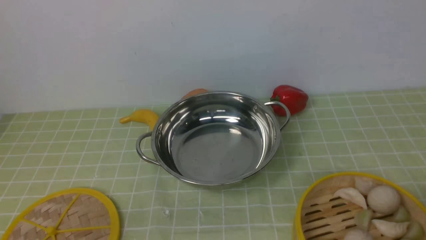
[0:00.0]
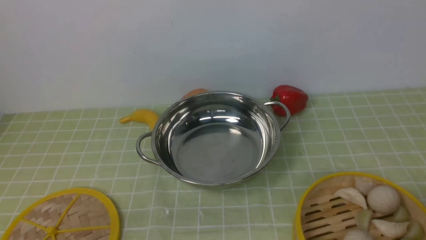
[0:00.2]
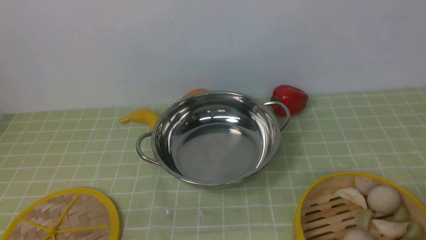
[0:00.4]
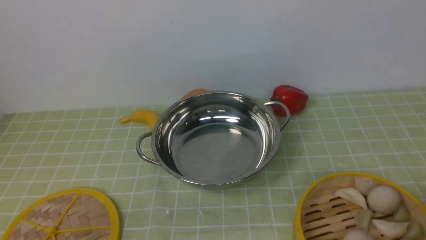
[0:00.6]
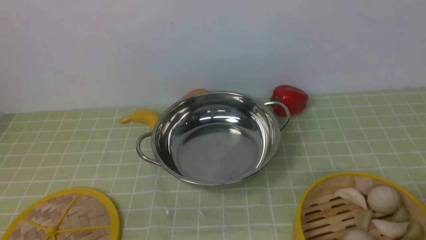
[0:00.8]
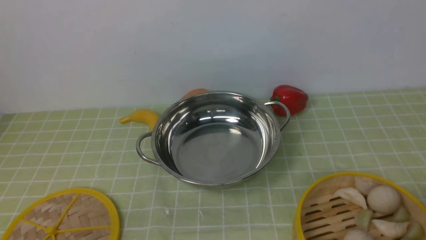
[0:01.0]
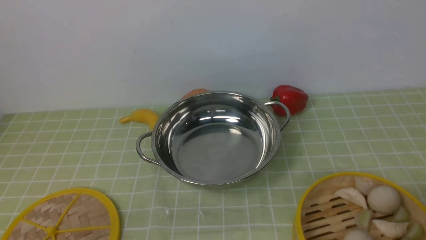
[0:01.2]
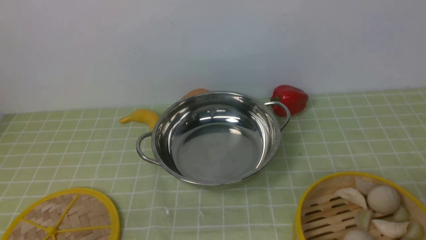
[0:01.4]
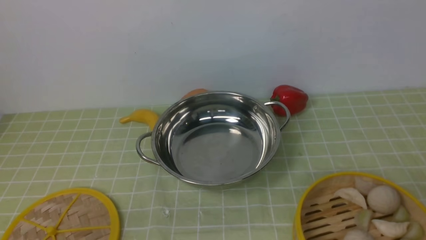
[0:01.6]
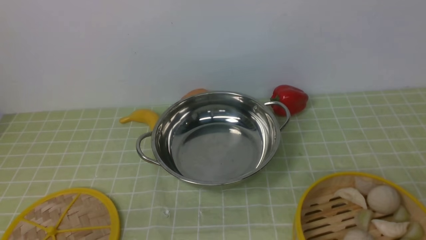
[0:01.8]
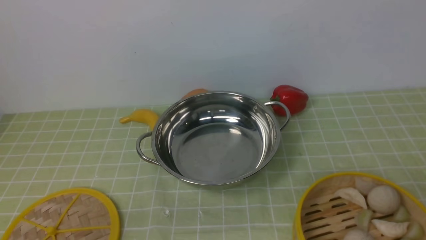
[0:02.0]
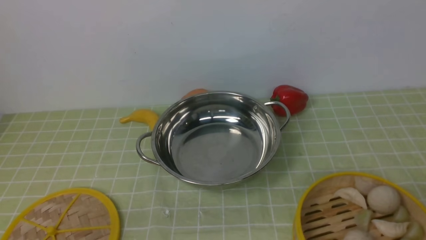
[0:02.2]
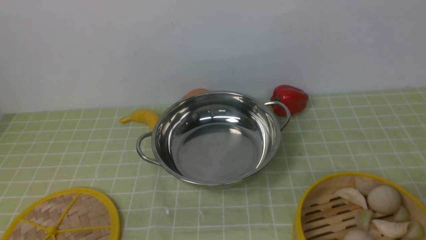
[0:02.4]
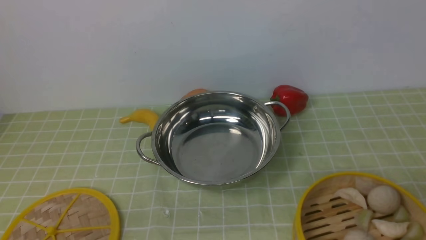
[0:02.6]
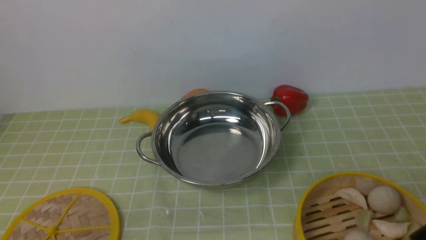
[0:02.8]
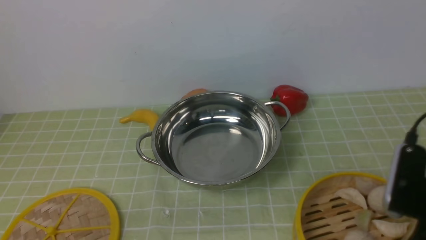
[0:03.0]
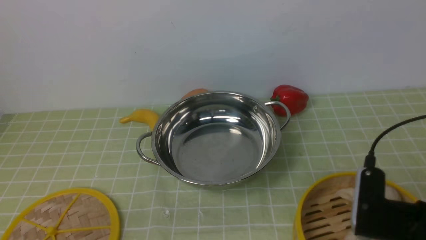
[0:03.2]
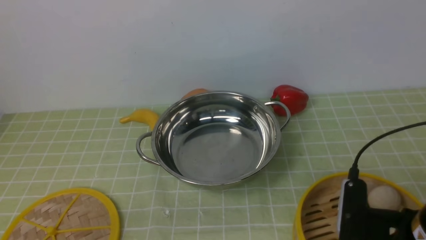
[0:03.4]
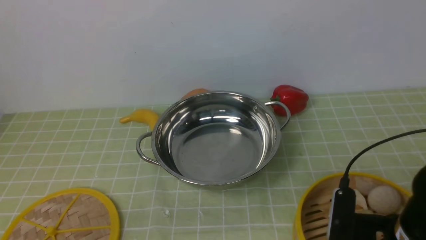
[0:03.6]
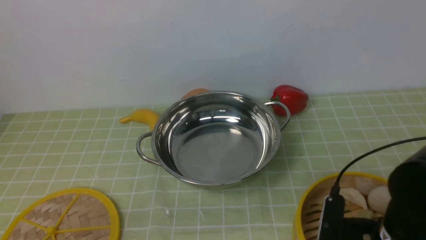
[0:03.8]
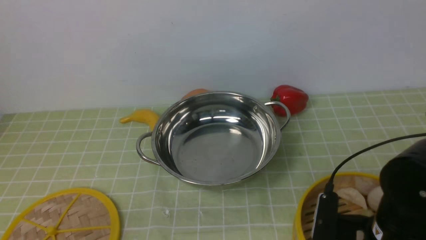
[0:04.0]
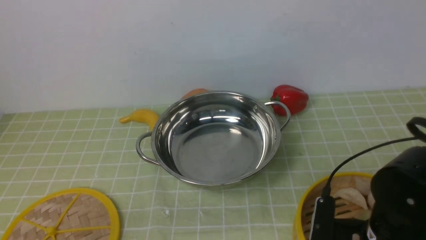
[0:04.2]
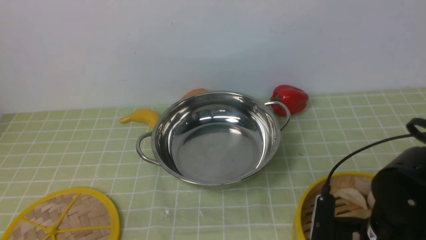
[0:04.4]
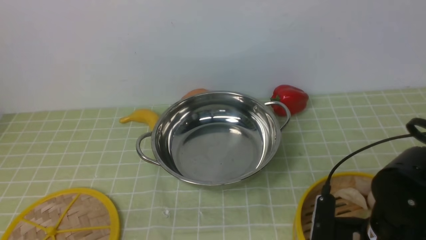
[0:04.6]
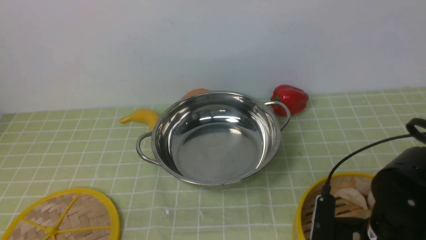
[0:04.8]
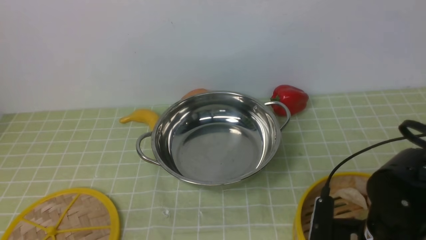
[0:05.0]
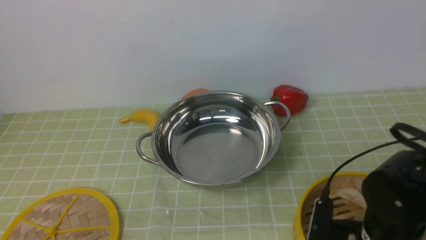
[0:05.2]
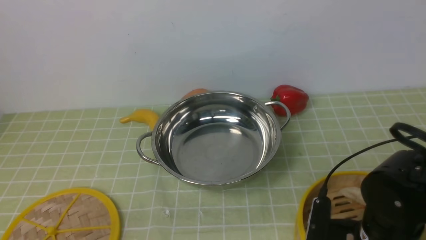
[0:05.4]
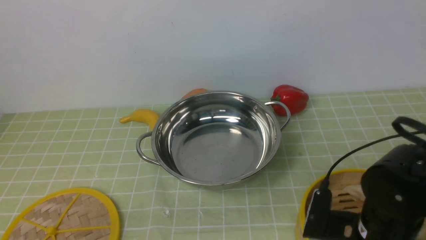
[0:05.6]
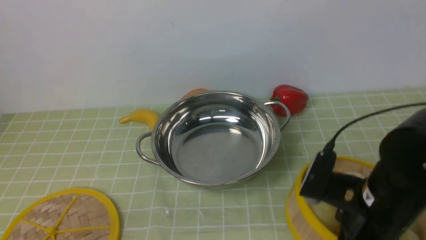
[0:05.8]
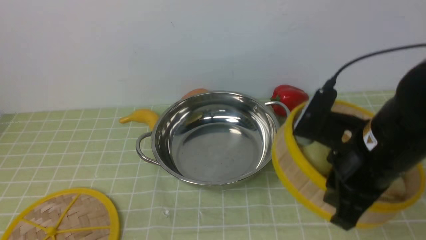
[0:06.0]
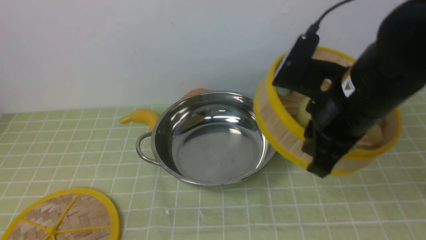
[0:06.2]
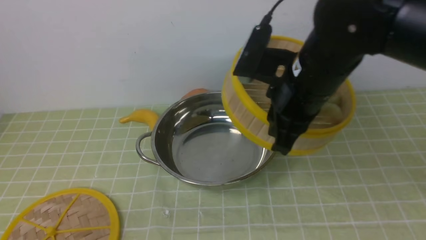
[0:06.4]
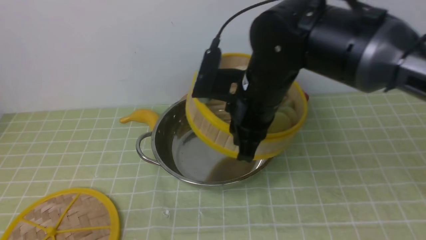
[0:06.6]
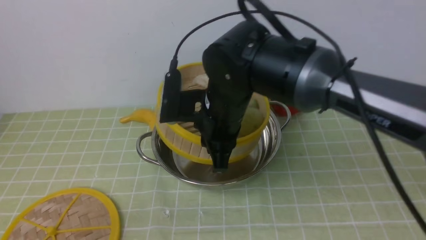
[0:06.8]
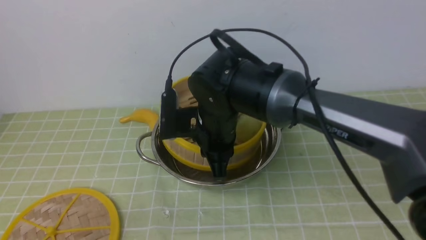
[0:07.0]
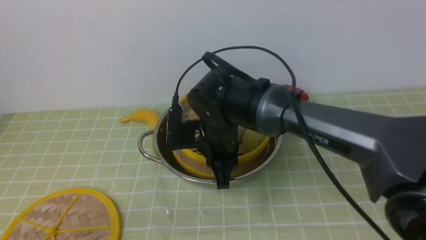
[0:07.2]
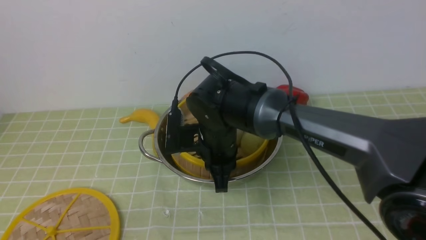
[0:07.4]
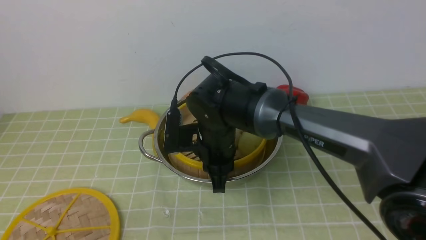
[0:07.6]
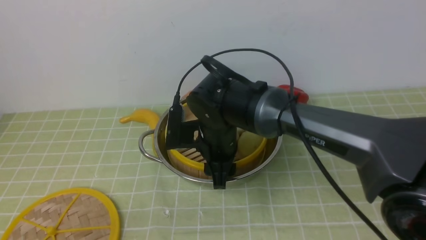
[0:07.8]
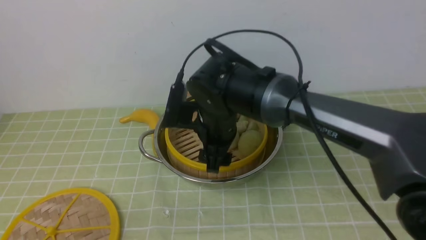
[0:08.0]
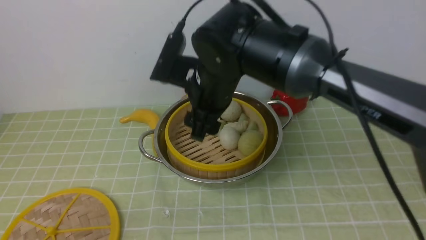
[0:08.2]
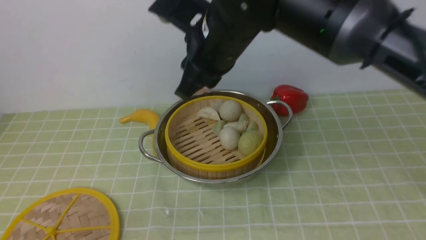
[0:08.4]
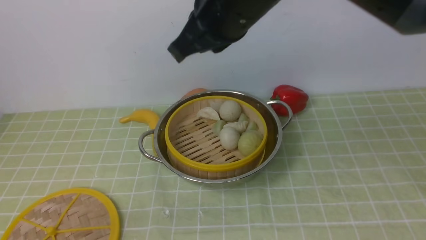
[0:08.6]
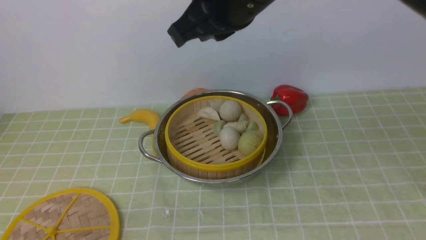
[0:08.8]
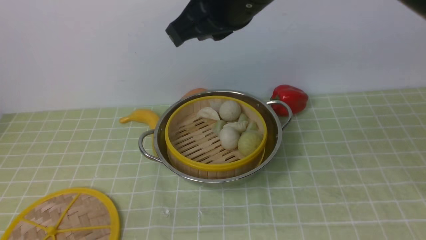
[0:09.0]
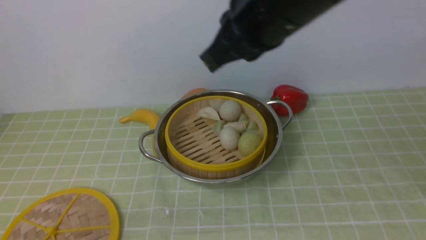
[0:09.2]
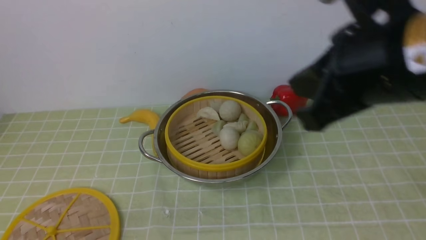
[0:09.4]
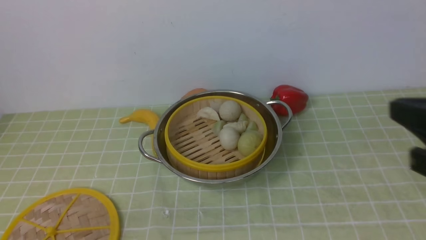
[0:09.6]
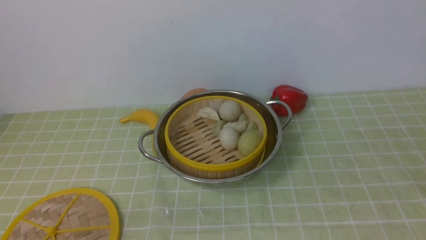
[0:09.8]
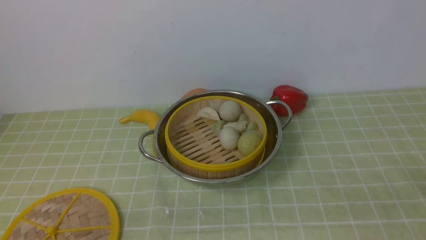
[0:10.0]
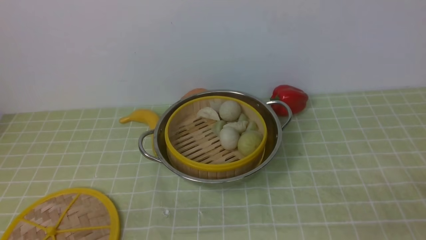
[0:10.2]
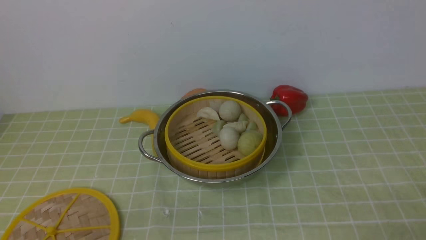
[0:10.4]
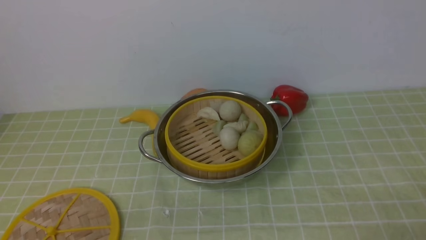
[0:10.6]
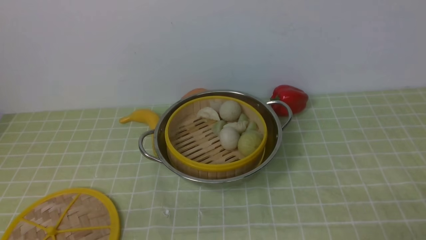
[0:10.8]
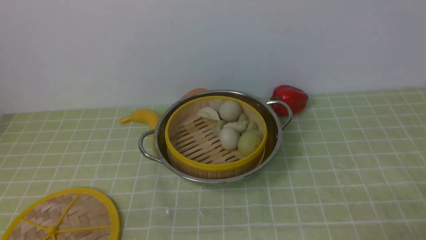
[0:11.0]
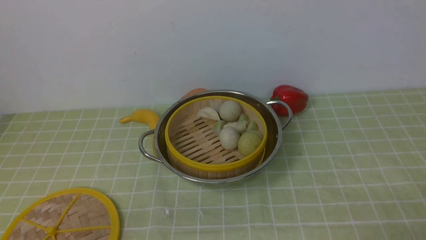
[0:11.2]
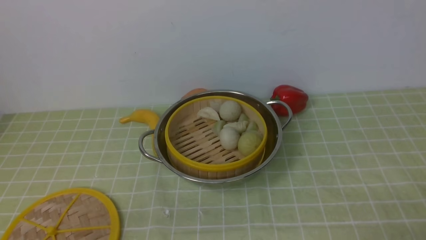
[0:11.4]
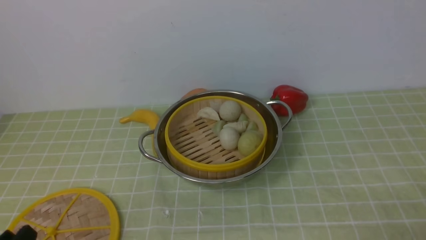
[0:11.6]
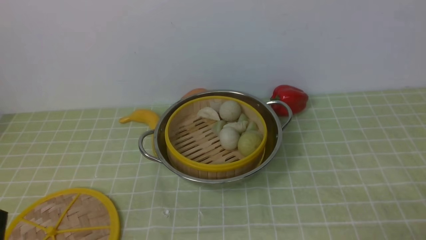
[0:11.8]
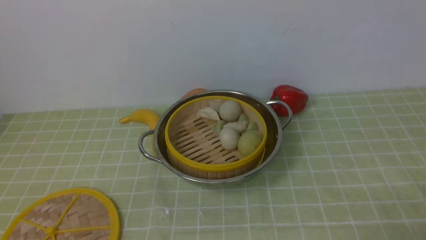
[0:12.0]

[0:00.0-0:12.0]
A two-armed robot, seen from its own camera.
Task of the whole recording: place the steamer in the pot on the green tablecloth, and put the lid on the steamer.
Step, 0:00.0 to 0:06.0: use the right arm to lift the steamer closest to it.
Step, 0:06.4 to 0:08.4: use the right arm to put the steamer into the iron steamer pot in the middle.
0:01.6 to 0:03.0: The right gripper heads forward and to the left, covering approximately 15 cm.
0:03.0 to 0:04.4: The right gripper heads downward and to the left, covering some 10 cm.
0:04.4 to 0:06.0: The right gripper travels upward by some 10 cm, and closes.
0:06.0 to 0:07.6: The right gripper goes some 25 cm to the left, forward and downward.
0:07.6 to 0:09.0: The right gripper goes roughly 25 cm upward, and closes.
0:09.0 to 0:10.4: The right gripper heads to the right, downward and backward, covering roughly 40 cm.

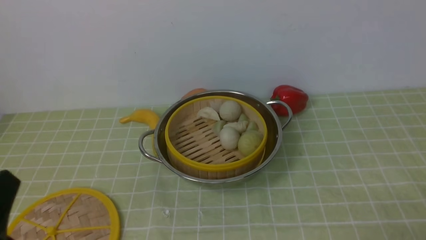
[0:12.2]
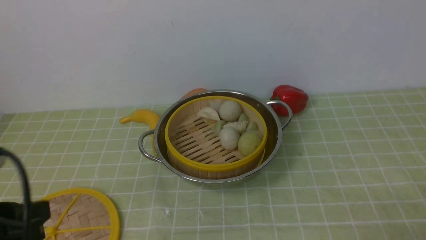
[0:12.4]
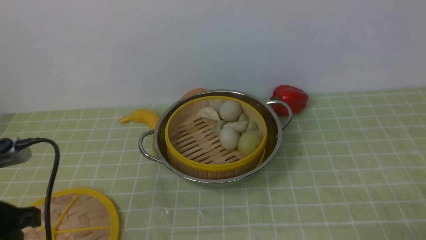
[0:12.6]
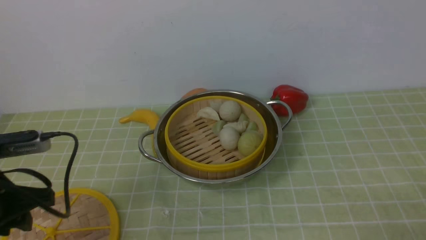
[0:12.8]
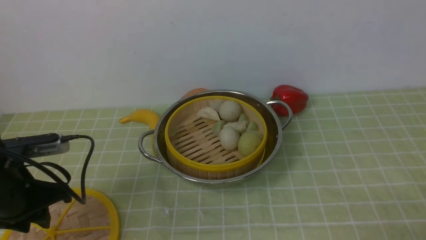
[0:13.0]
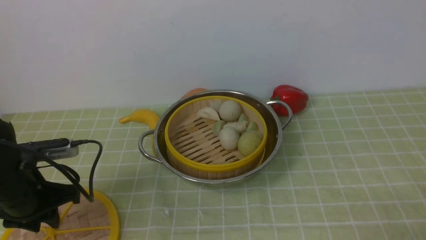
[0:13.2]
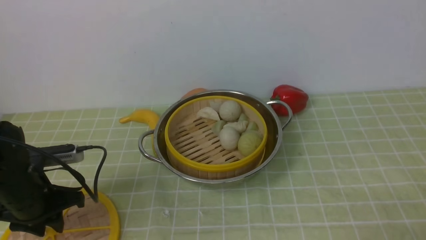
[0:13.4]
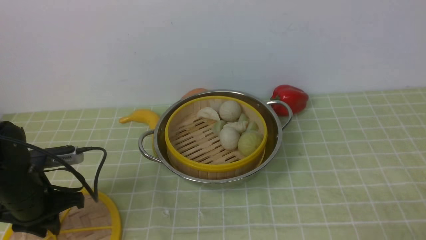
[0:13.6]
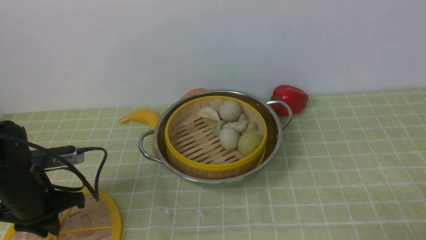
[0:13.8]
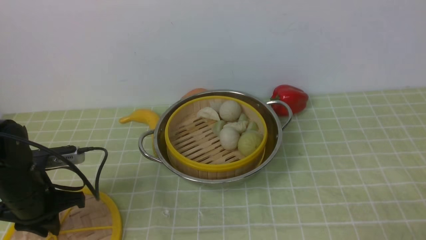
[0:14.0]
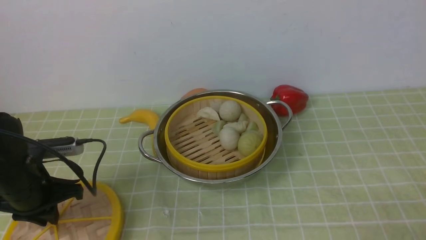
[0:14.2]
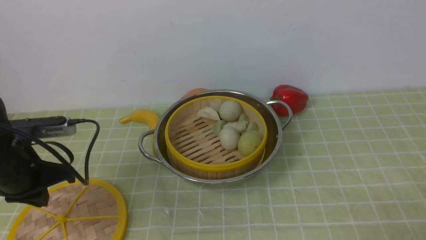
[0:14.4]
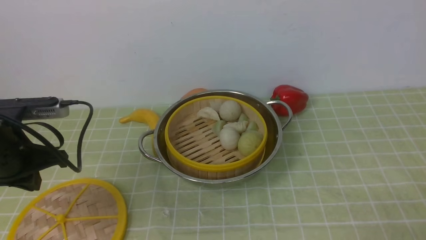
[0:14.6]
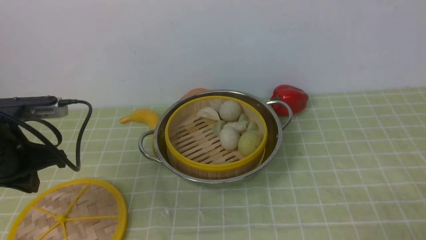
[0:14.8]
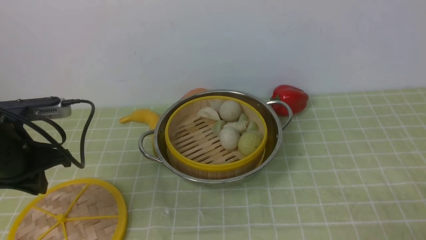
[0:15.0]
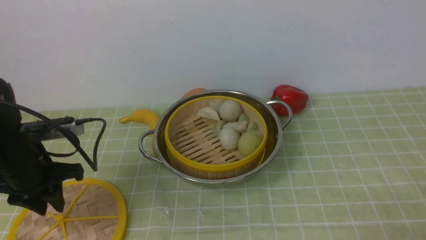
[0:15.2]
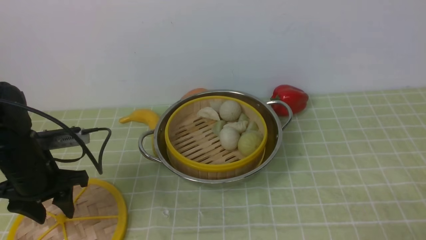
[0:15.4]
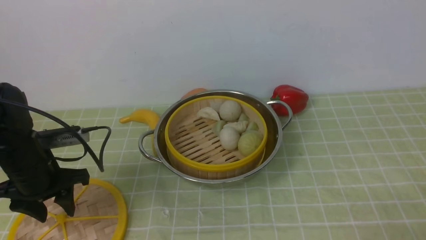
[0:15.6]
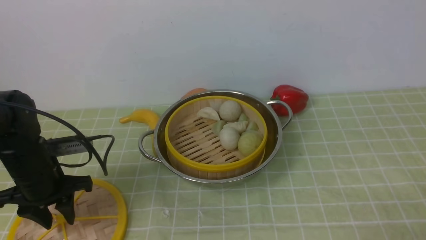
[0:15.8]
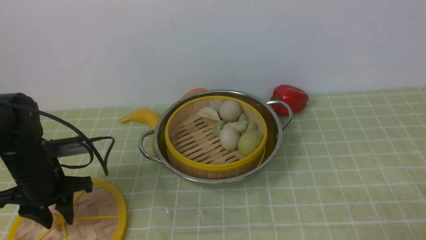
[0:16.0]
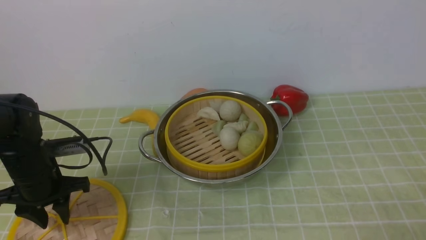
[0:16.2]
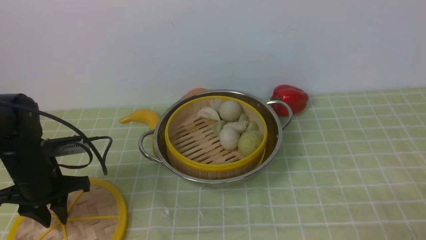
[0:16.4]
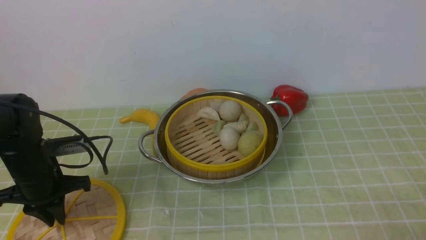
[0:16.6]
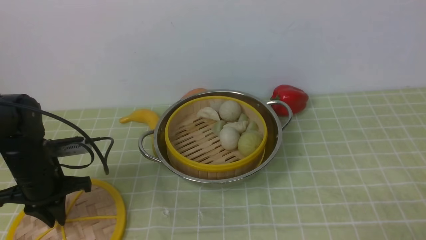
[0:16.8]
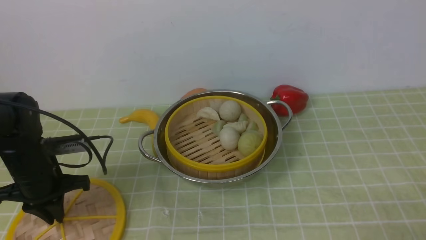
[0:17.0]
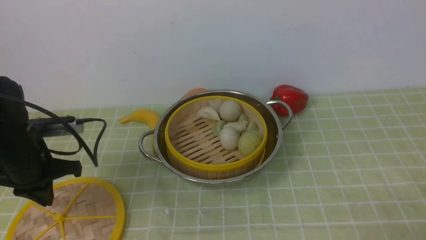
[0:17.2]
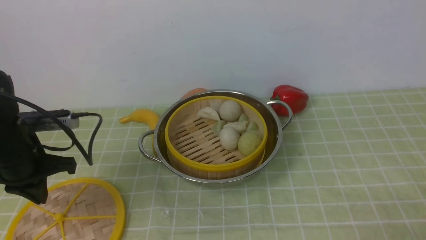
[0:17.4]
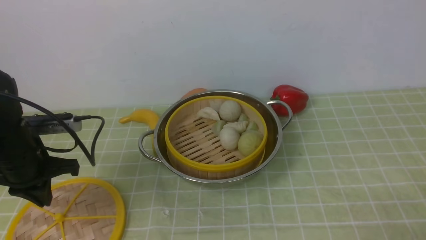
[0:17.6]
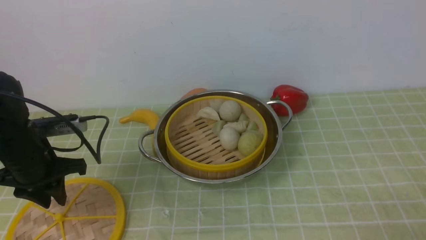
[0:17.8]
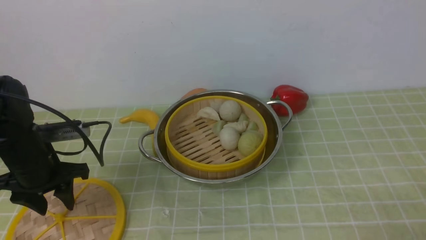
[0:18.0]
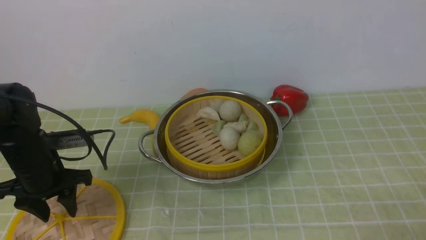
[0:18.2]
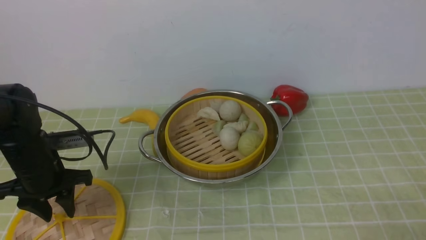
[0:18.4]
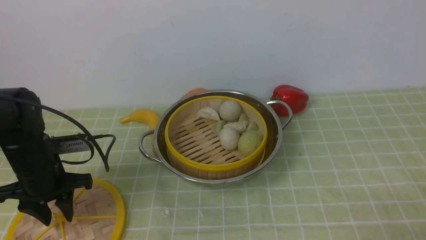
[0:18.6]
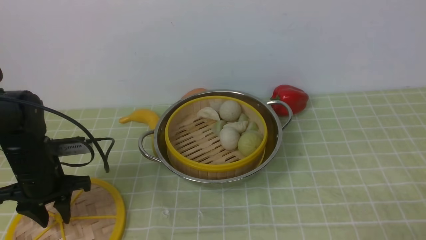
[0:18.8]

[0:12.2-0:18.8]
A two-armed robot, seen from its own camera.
Task of the whole recording: place the steamer in the pot on the green tablecloth, and put the lid on the steamer.
0:12.2 to 0:13.8: The left gripper is displaced forward and downward by approximately 20 cm.
0:15.4 to 0:17.2: The left gripper closes up.
0:17.2 to 0:18.8: The left gripper opens up.
